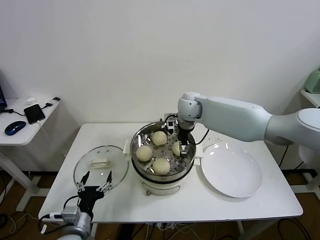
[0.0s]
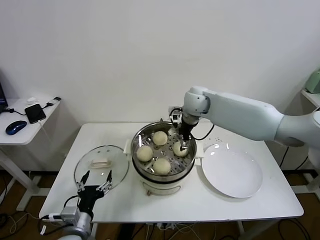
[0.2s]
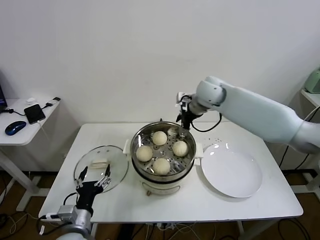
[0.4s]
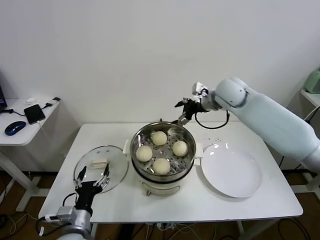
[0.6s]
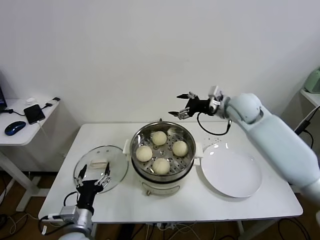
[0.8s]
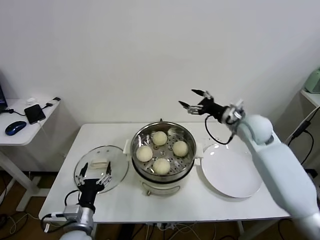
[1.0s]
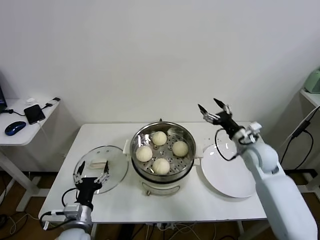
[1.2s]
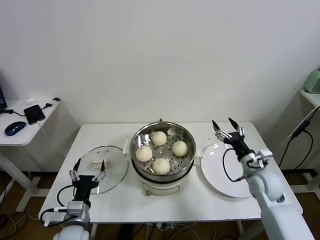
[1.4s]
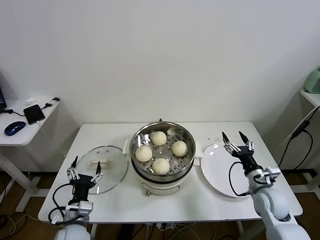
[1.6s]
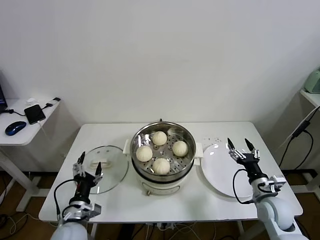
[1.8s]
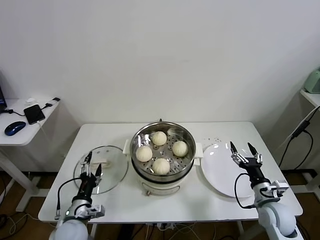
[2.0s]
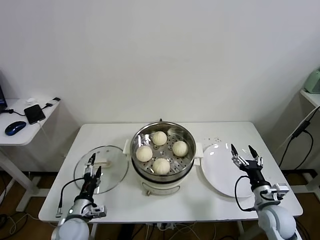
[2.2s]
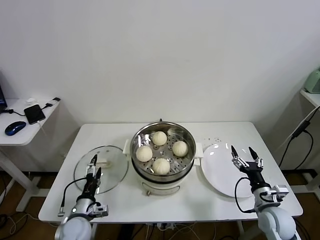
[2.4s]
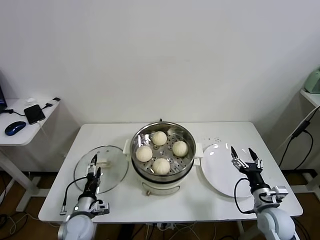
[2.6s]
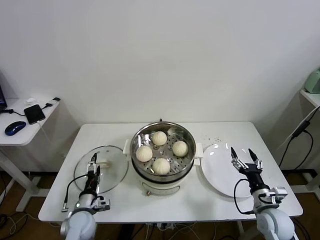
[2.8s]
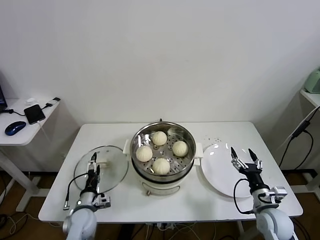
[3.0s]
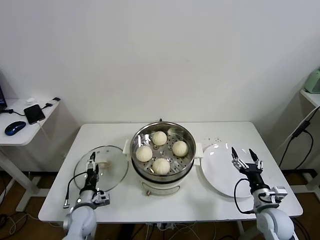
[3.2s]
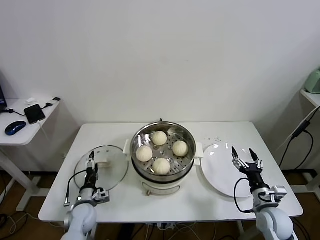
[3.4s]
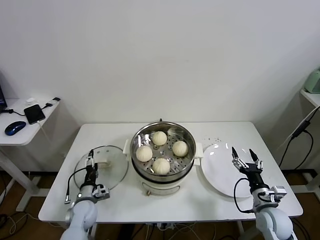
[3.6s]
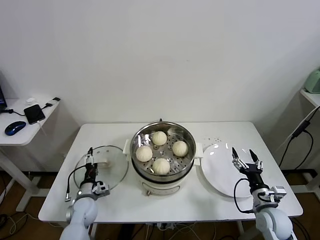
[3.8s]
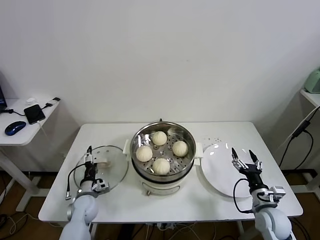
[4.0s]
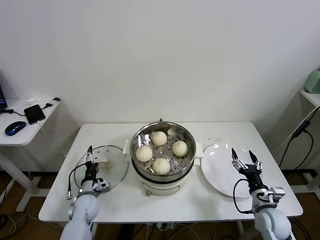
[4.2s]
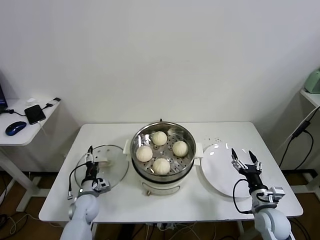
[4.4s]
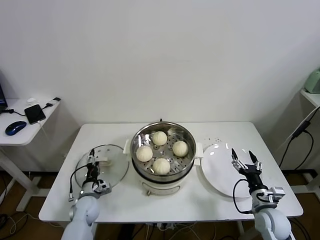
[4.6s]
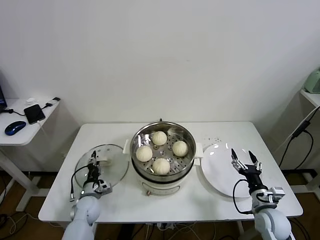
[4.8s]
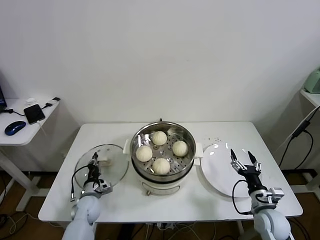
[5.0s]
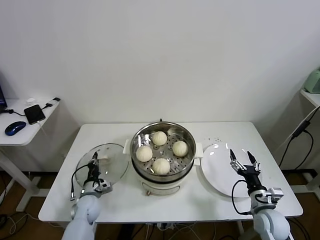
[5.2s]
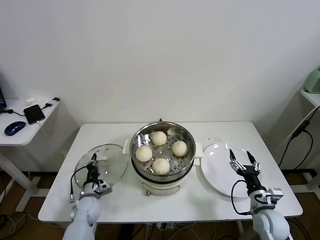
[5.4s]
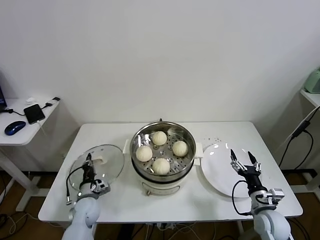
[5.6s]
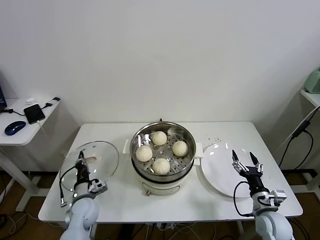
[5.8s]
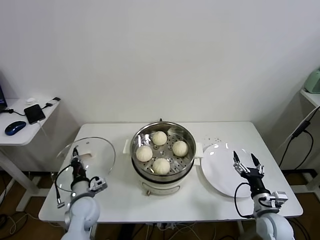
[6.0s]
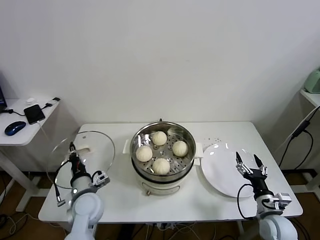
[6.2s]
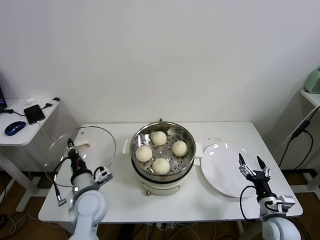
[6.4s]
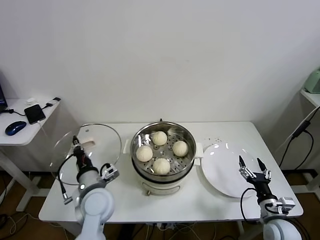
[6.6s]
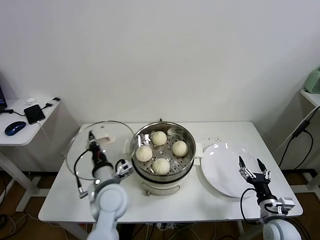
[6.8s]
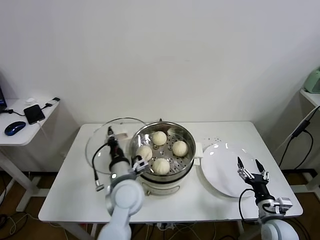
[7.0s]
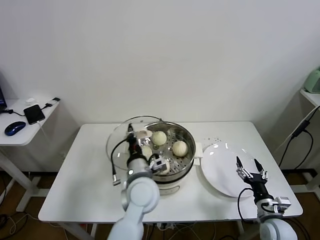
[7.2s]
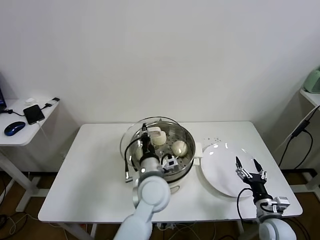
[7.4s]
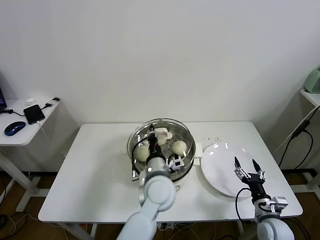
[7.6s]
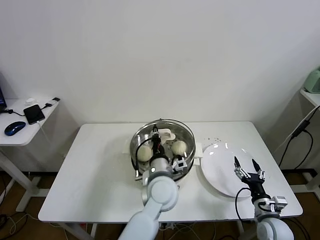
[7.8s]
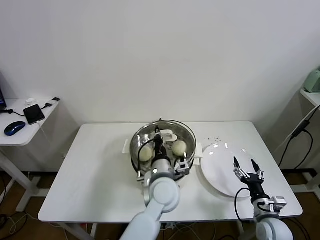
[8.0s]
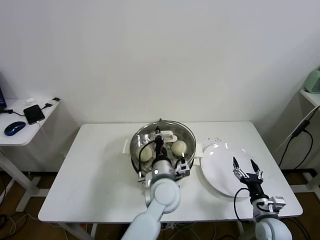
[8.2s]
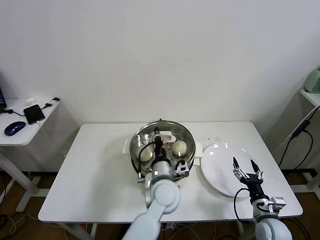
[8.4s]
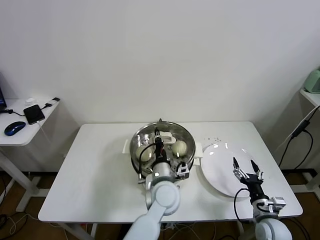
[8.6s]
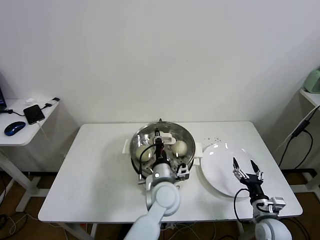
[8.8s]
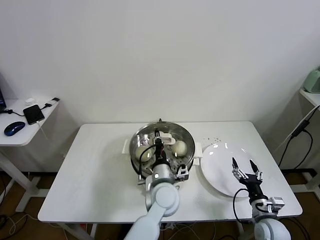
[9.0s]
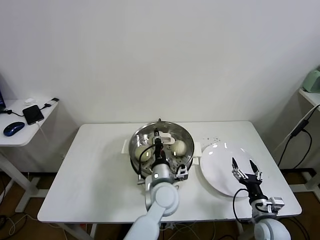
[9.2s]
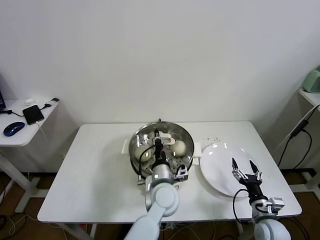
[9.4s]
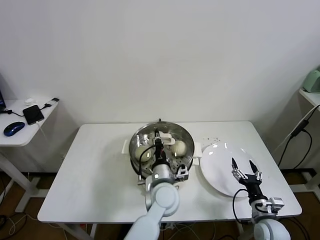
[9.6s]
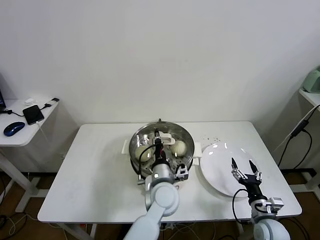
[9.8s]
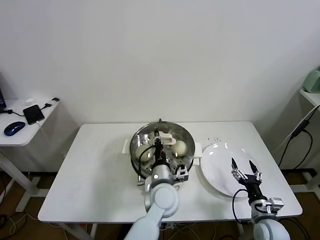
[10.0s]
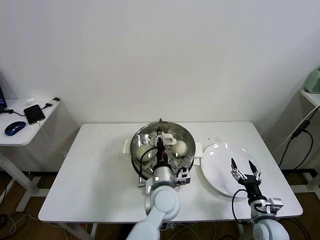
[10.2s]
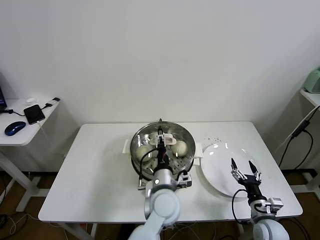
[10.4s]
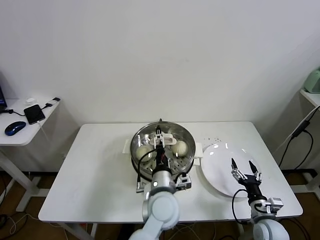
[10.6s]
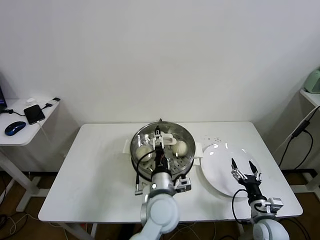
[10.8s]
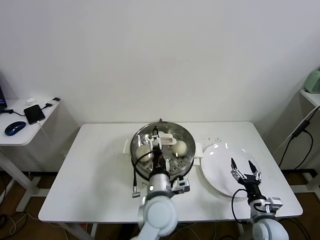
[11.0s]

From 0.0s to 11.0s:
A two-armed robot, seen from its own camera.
Task of the whole recording: take steamed baozi put them in steamer.
Step, from 0.2s to 5.0s: Grasp the pot lid with left gripper.
Step, from 5.2s to 10.2s: Place the pot lid on the steamer with left gripper.
From 0.0s to 1.6s: The right gripper is displaced backward, to the right and downward by roughly 40 cm.
From 1.6s to 3.2s: The left gripper shifts approximately 10 cm downward and forward. Meanwhile the right gripper goes some 5 cm backward.
From 3.2s to 4.8s: The left gripper shifts by roughly 5 cm, and closes up.
From 4.8s to 6.2s: The left gripper heads upward, covering some 10 cm, and closes its fingers.
From 6.2s to 7.8s: The left gripper travels to the right by approximately 25 cm.
From 7.8s to 9.4s: The grippers make only small movements.
From 9.4s to 11.0s: The left gripper heads backward, covering roughly 5 cm, and opens its fingers.

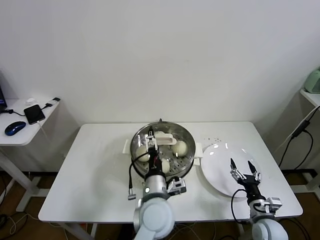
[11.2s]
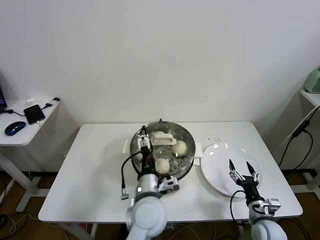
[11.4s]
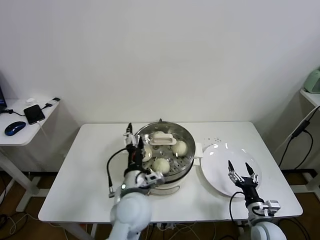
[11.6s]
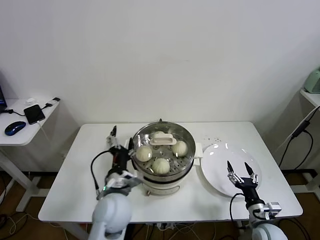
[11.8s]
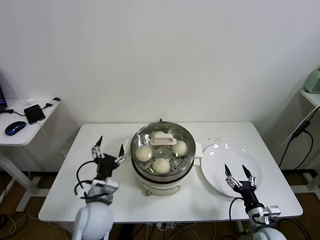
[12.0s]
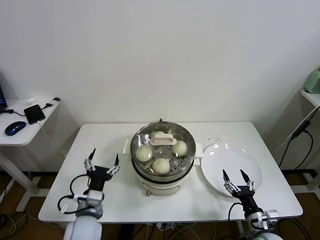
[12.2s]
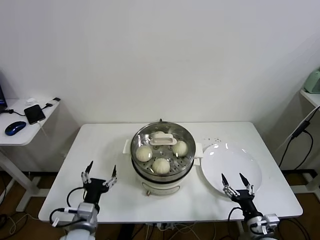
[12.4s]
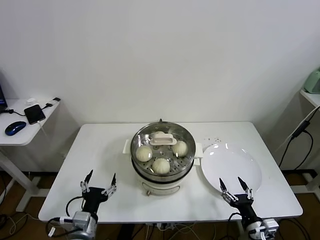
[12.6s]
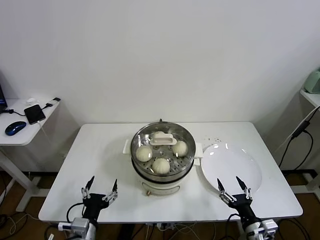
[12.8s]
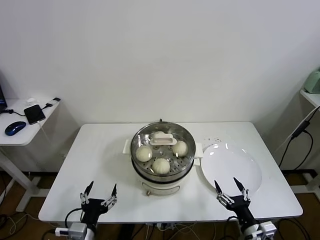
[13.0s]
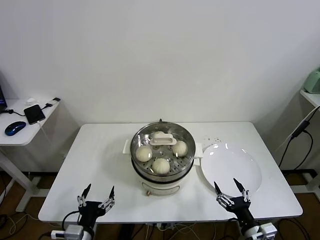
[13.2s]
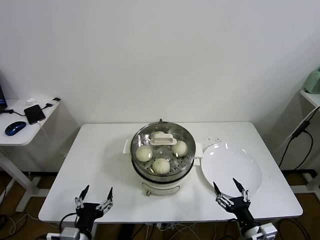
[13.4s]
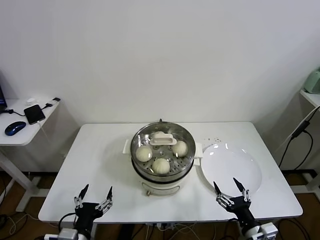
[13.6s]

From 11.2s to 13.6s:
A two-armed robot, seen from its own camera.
Task of the whole recording: take steamed baozi put them in steamer.
From 11.2s to 12.4s: The left gripper shifts about 20 cm to the left. Meanwhile the right gripper ends up approximately 5 cm from where it was.
From 12.4s to 13.6s: The left gripper heads backward, covering approximately 10 cm; the right gripper travels upward by approximately 5 cm.

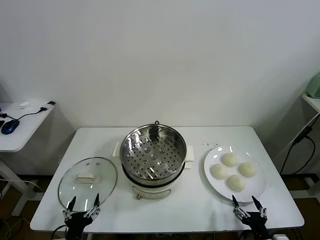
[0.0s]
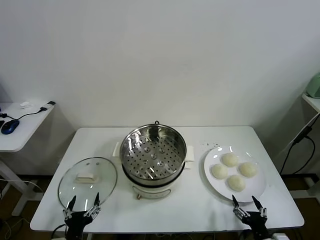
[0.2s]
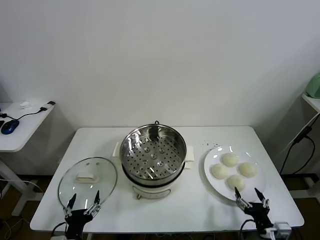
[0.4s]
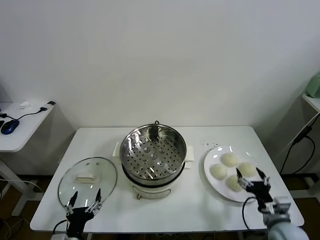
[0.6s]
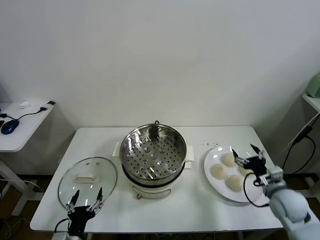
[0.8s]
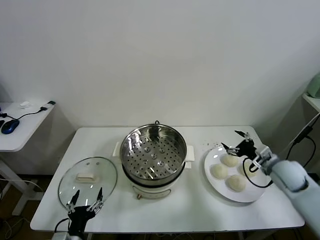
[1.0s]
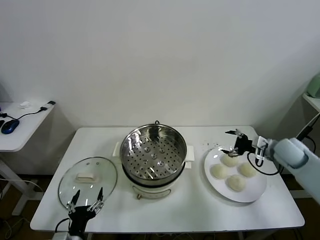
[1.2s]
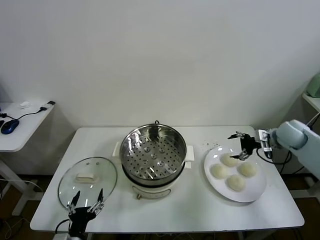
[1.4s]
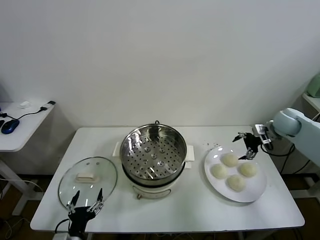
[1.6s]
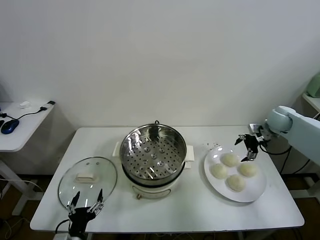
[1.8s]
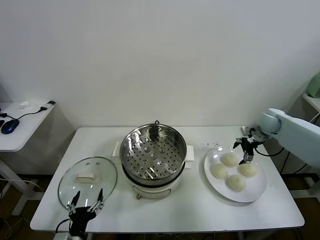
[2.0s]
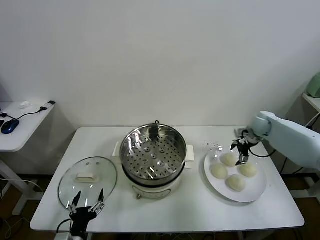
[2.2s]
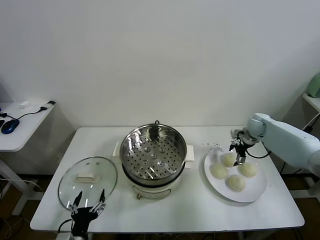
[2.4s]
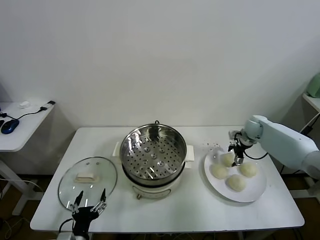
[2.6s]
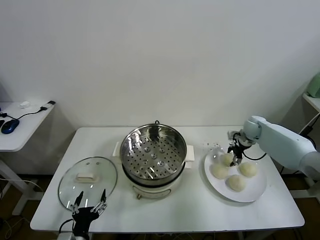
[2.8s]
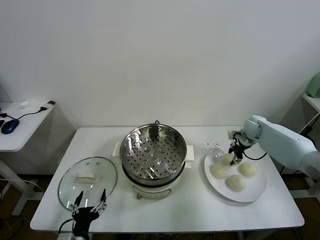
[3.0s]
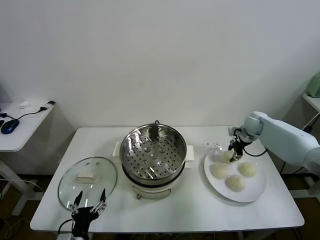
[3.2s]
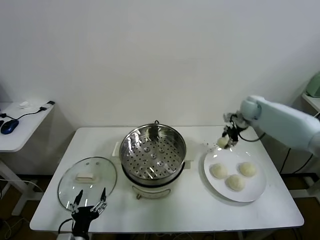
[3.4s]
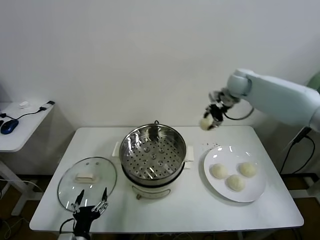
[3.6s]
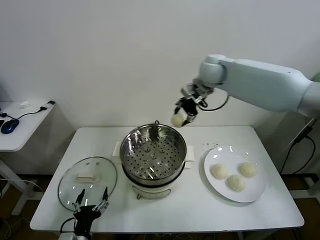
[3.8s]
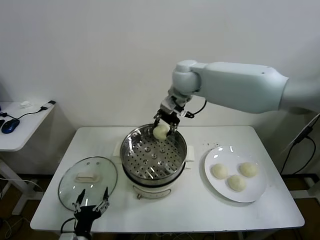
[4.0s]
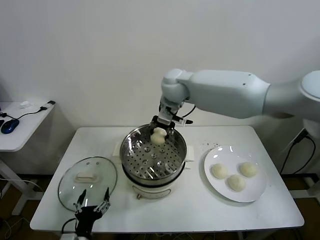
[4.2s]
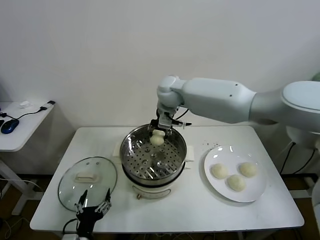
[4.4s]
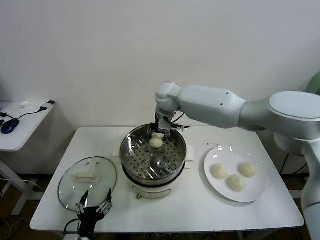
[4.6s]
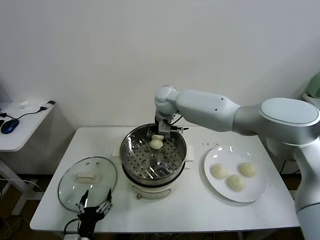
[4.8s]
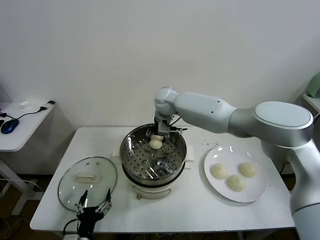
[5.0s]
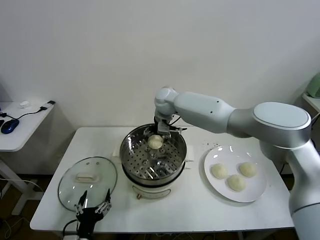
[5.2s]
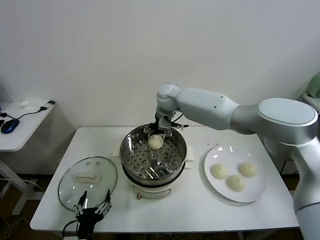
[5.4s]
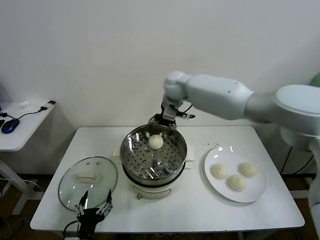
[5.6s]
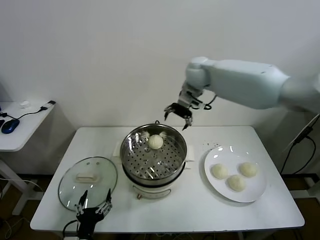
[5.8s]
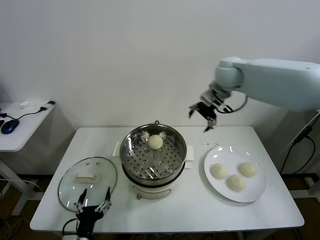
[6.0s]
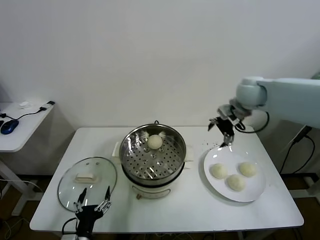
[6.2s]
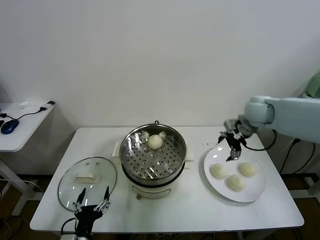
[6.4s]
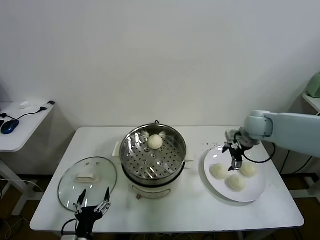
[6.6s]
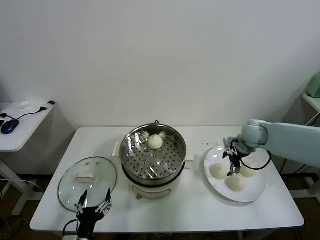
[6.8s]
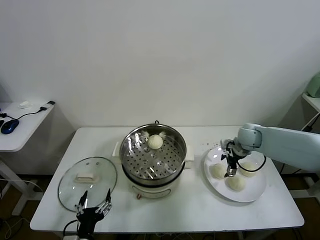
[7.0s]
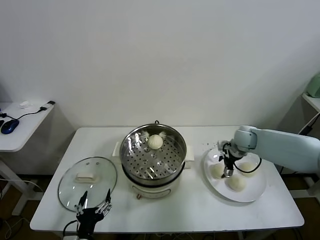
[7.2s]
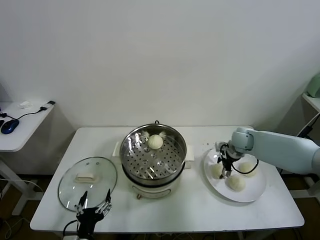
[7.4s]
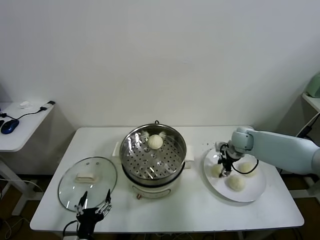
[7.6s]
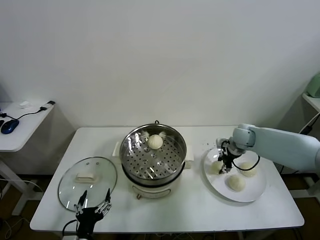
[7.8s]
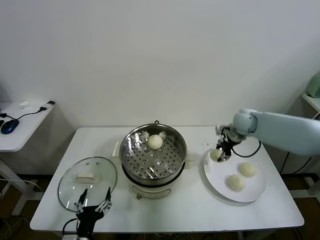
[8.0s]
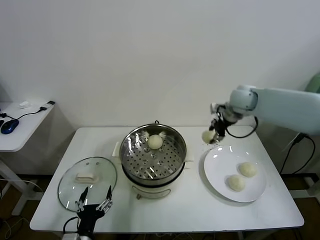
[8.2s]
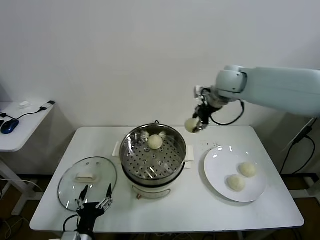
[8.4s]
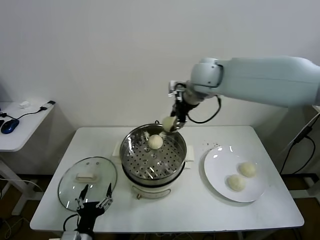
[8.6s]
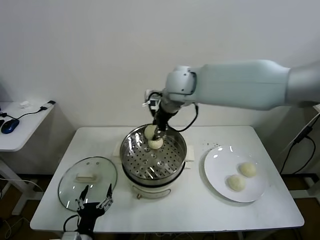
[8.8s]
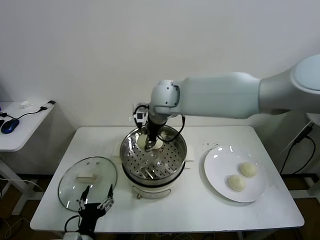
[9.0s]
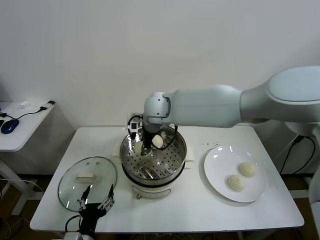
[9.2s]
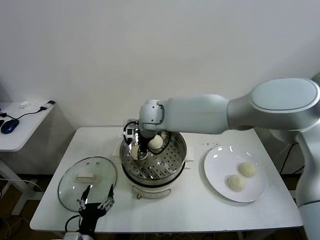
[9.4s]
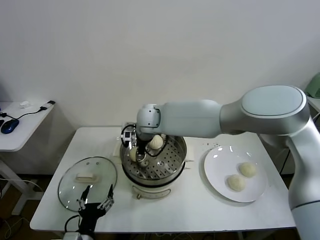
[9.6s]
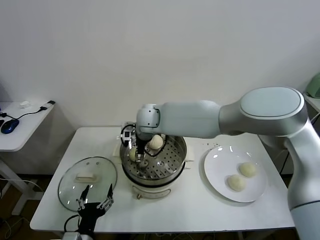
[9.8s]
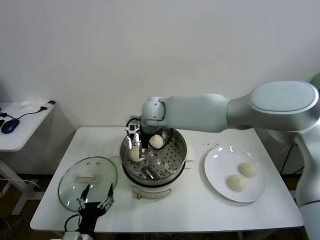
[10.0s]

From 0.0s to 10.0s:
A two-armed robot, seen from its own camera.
Task of the whole recording: take steamed baozi put them in steamer.
Step, from 0.0s to 2.8s: Grasp the baozi in the plate with right gripper.
Step, from 3.0s to 5.2s: Place the baozi on the steamer with right gripper.
Step, from 5.4s to 7.4s: Grasp the baozi in the plate with right gripper.
Step, from 7.6s to 9.8s: Place the baozi on the steamer with right gripper.
From 1.4s to 2.8s: The right gripper heads downward, forward and to the left, covering about 15 cm, and closes.
From 2.8s to 4.2s: The right gripper shifts roughly 40 cm to the left and upward.
From 4.2s to 5.8s: The right gripper heads to the right, covering some 15 cm, and opens its fingers.
From 5.8s to 7.2s: The right gripper goes roughly 30 cm downward and to the right.
From 7.2s to 8.6s: The right gripper heads upward and to the left, covering approximately 35 cm, and closes its fingers.
From 8.6s to 10.0s: The right gripper moves downward and to the left, roughly 15 cm, and opens its fingers.
